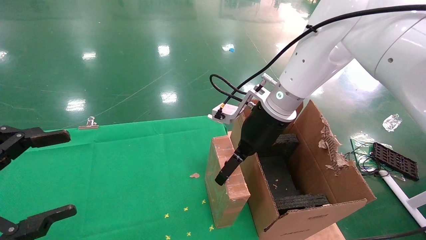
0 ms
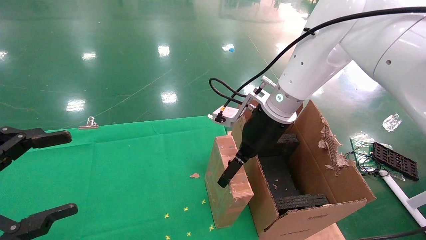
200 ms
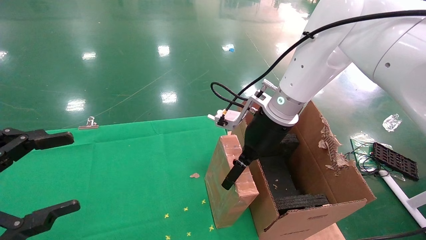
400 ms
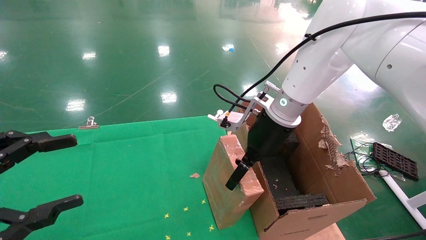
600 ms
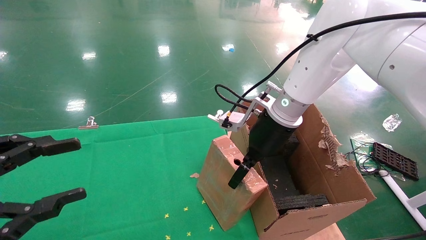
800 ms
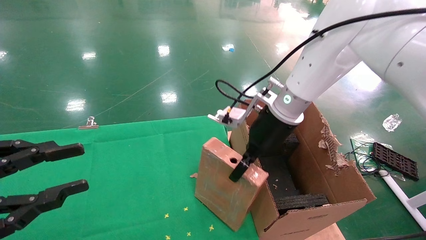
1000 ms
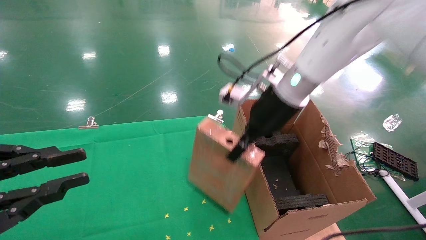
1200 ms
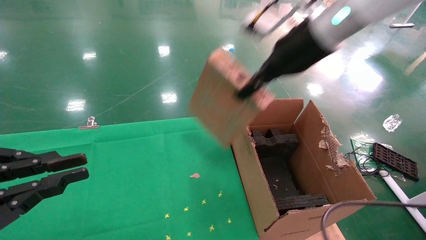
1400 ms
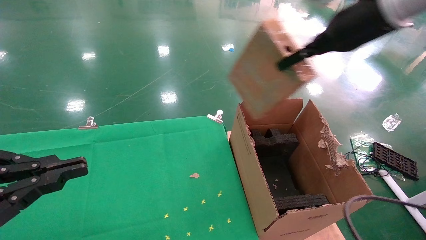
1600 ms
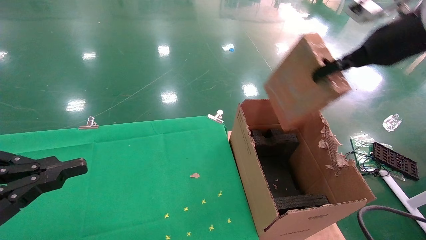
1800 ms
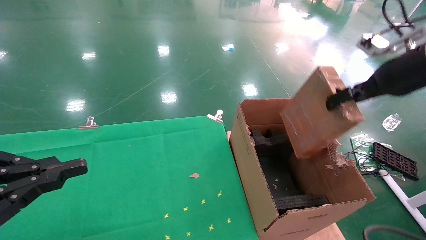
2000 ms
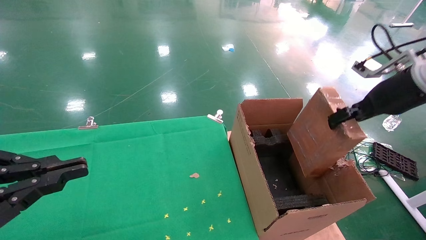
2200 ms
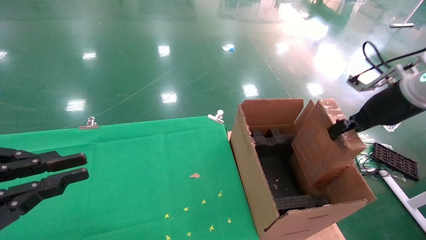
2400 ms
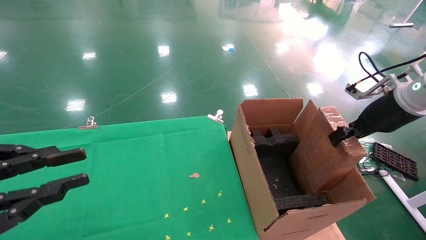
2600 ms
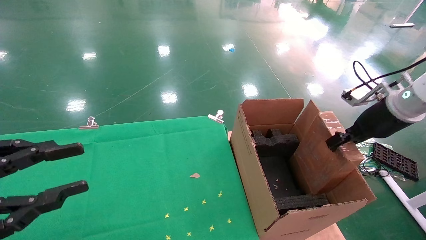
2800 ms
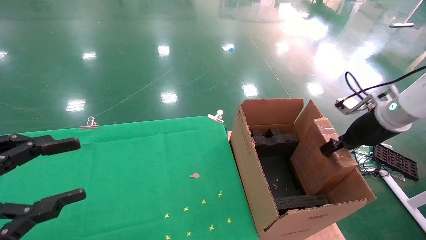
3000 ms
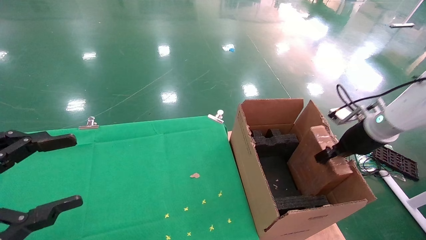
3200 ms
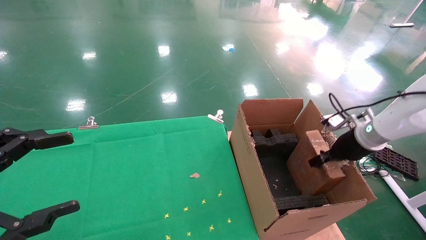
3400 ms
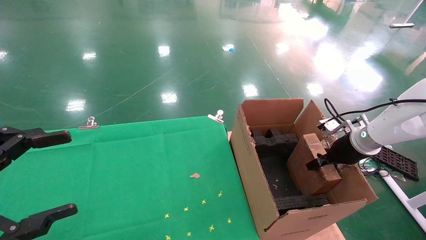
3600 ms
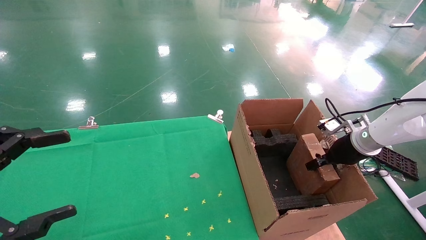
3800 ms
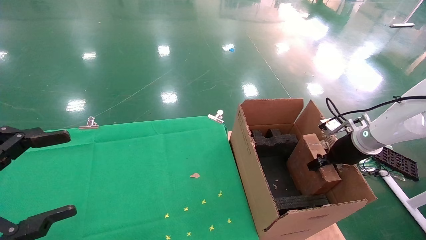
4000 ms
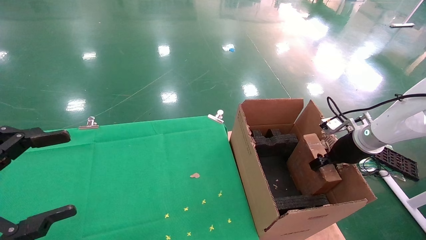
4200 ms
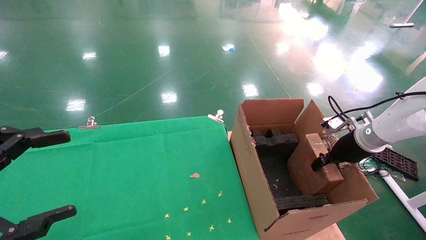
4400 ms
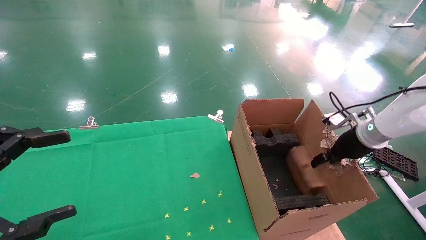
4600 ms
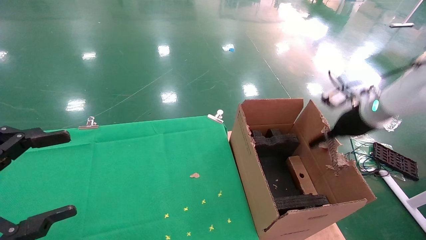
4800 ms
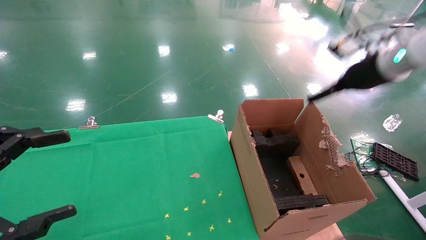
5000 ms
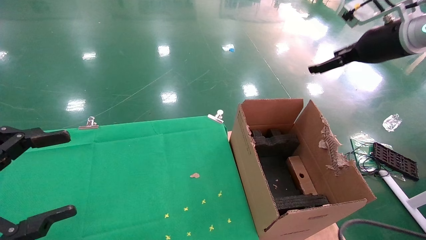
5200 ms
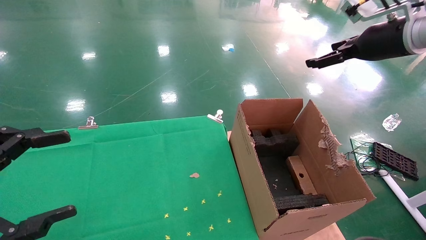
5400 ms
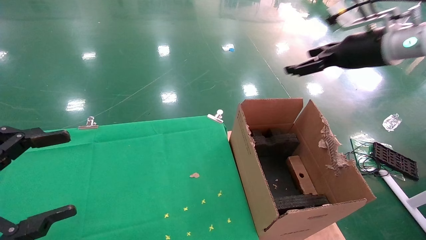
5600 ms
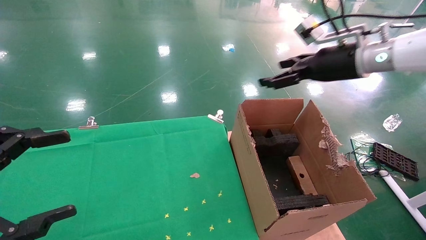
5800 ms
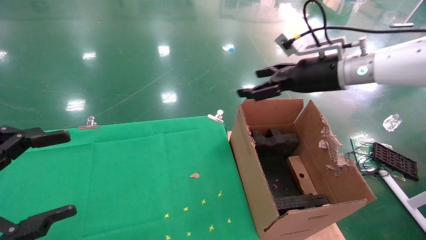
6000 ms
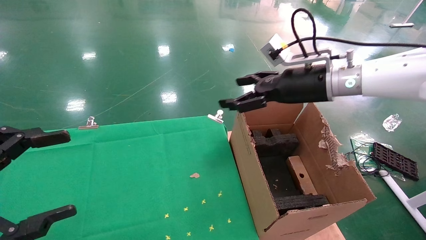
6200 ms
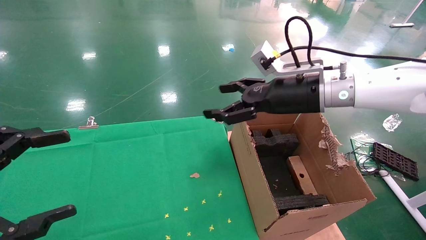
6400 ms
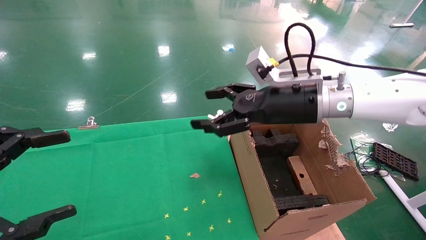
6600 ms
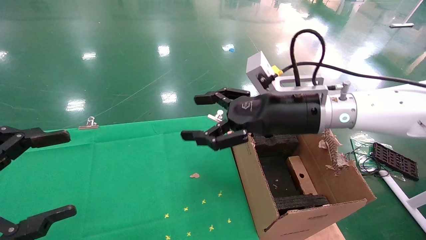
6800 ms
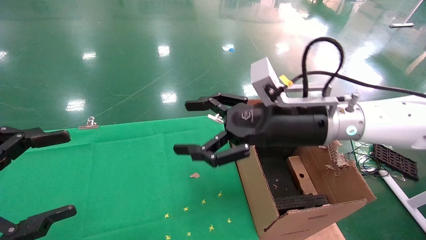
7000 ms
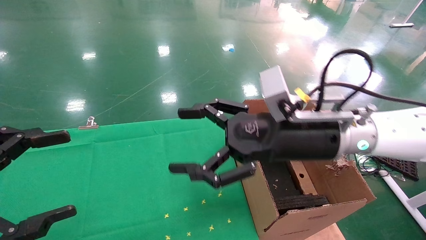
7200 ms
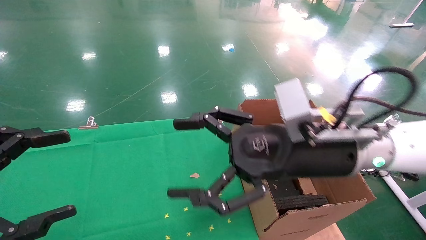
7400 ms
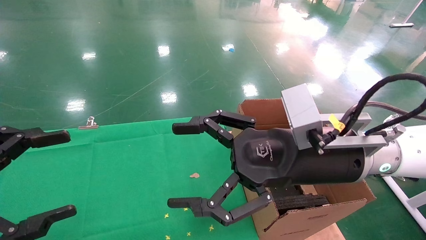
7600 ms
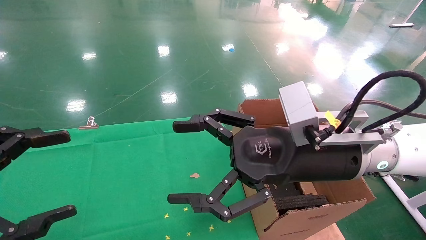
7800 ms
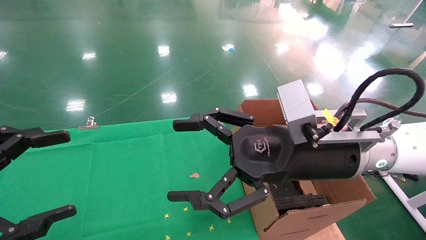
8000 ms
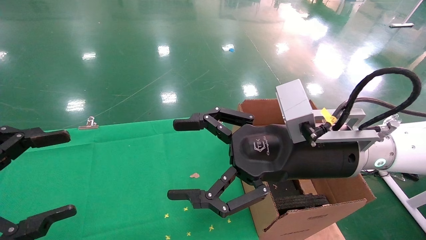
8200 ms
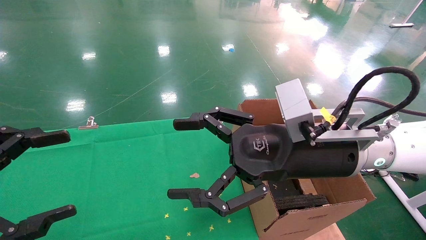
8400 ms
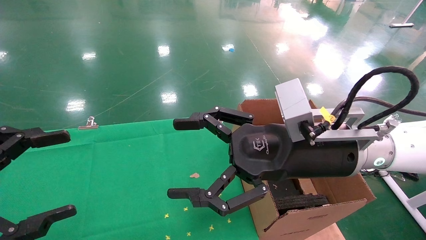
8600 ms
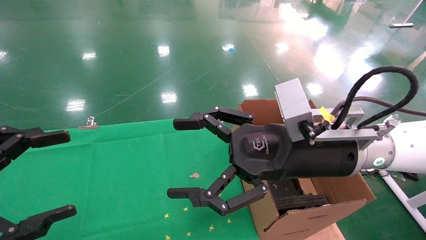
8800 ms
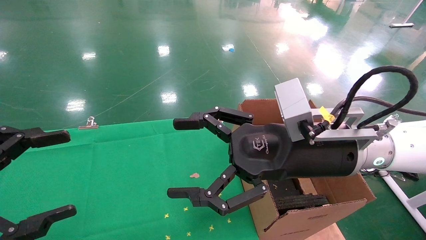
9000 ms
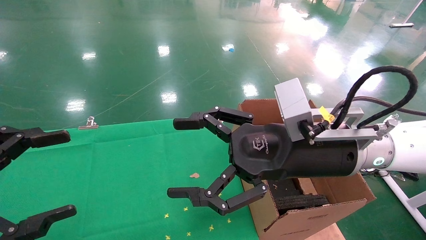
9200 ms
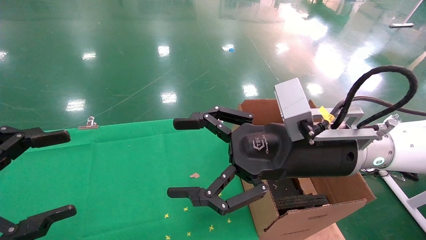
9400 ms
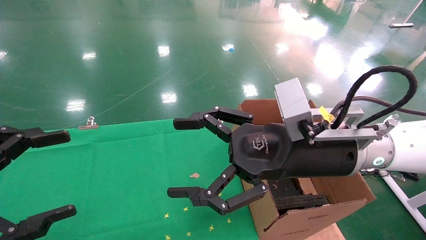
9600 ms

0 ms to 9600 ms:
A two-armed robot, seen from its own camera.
Task of the whole recording: using a robotic arm to pick up a cardboard box and palace it the carton.
Step, 1200 ms to 4800 ms: Place the mouse and the power cord paper box into the container.
0 ms to 1600 ms: The right gripper goes some 20 cm upward and to the right, and closes up. Meanwhile the left gripper closes up.
1600 ms to 3200 ms: The left gripper opens. The right gripper heads downward and to the right, covering approximately 25 cm.
3200 ms to 4800 ms: The right gripper travels upward by roughly 5 cm, and opens up, while the left gripper opens.
4800 ms to 6400 ms: The right gripper shifts approximately 20 cm to the left, and opens its fingers.
6400 ms to 8000 ms: The right gripper shifts about 15 cm backward and to the left.
8000 ms to 9600 ms: Neither gripper changes place.

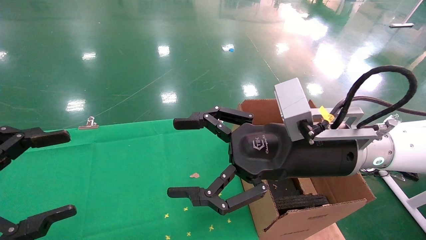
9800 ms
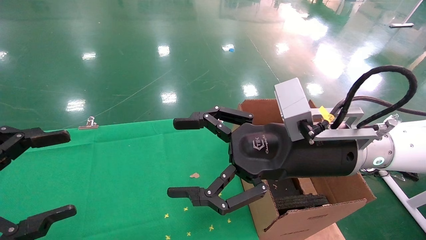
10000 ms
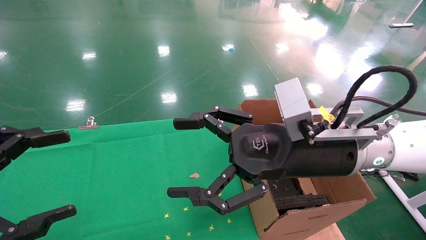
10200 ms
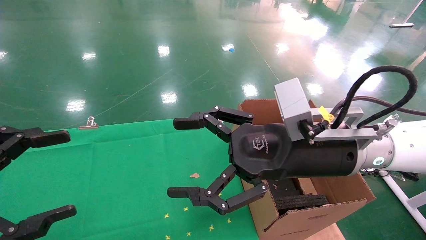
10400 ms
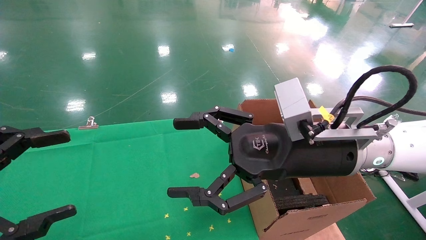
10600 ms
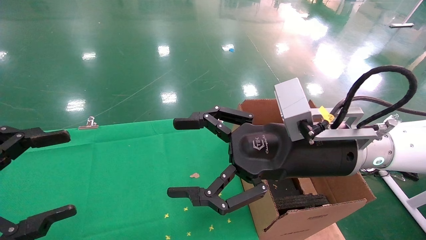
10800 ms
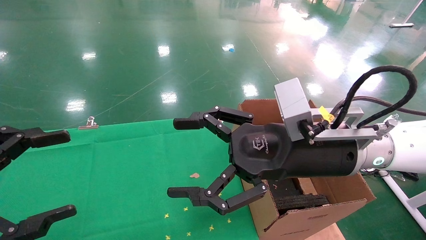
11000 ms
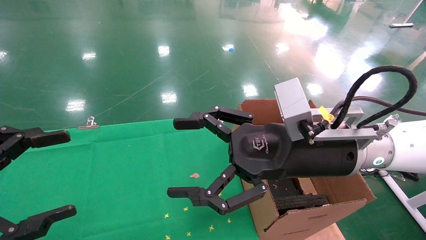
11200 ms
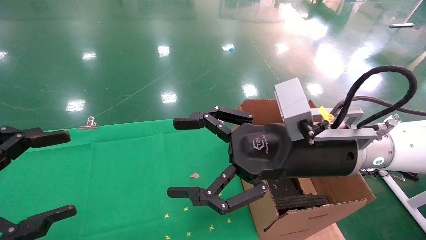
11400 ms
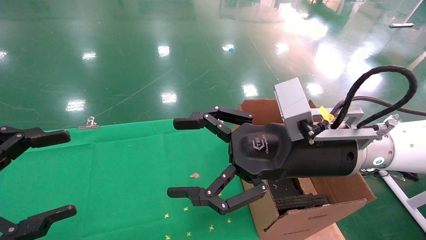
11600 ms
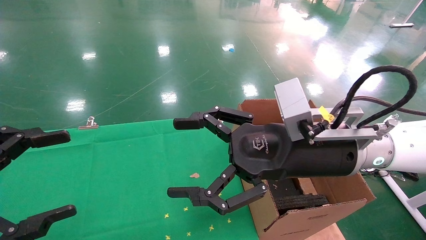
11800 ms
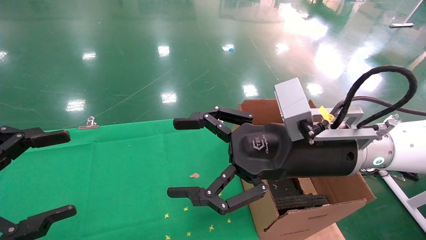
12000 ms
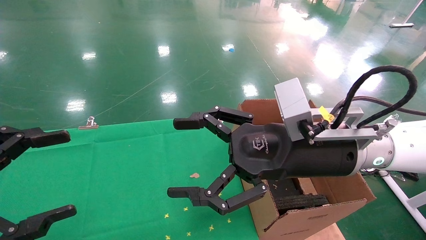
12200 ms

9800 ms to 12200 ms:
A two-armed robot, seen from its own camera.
Task of the whole recording: using a robotic arm to pick up a cardboard box and palace it the carton.
9800 ms to 12200 ms: Both grippers stay put.
